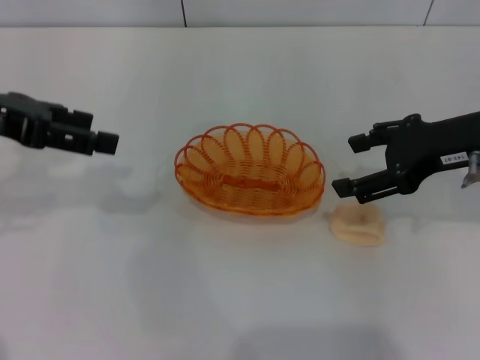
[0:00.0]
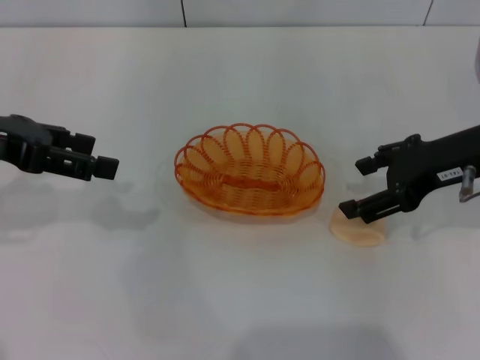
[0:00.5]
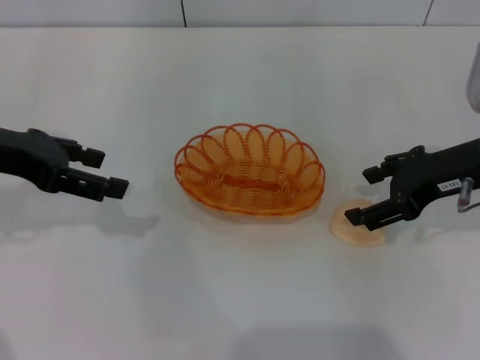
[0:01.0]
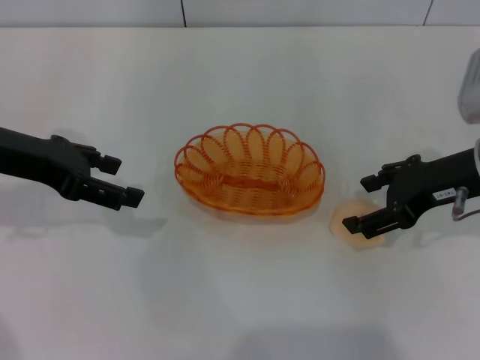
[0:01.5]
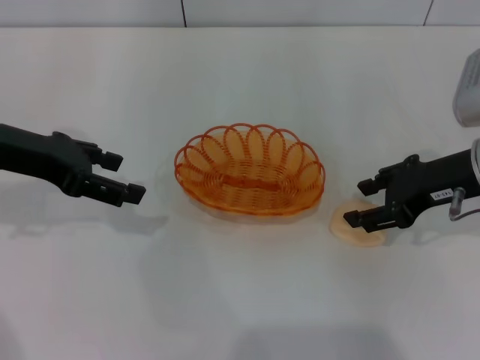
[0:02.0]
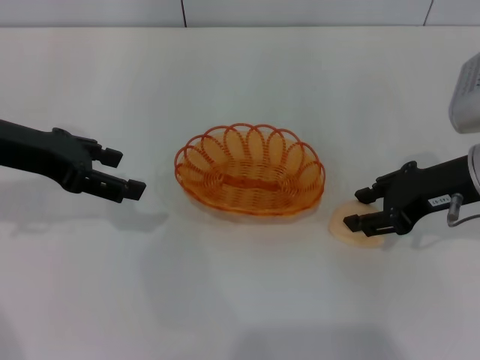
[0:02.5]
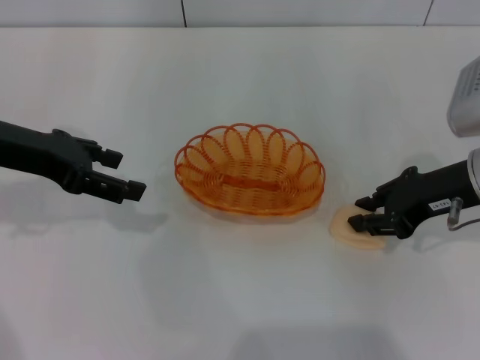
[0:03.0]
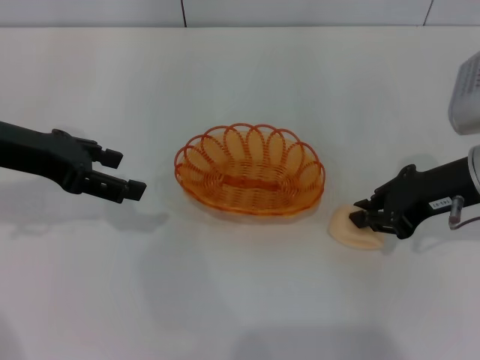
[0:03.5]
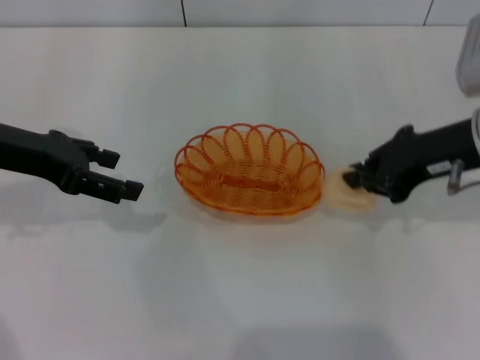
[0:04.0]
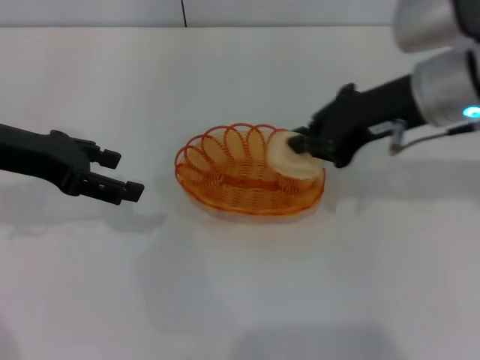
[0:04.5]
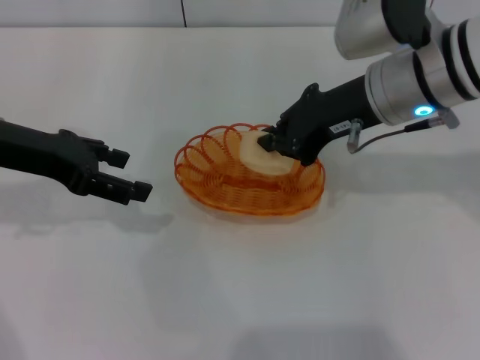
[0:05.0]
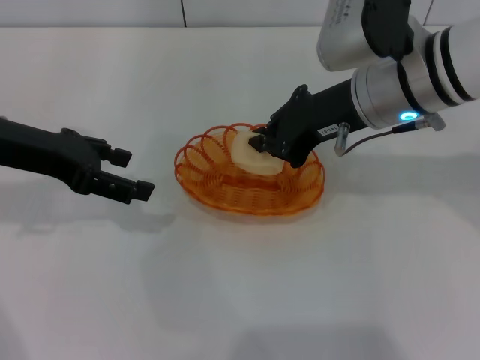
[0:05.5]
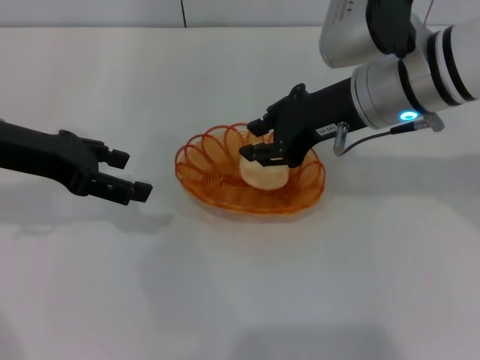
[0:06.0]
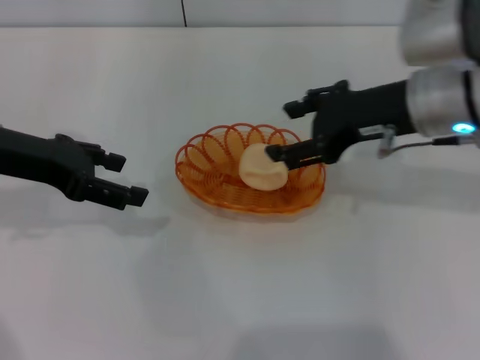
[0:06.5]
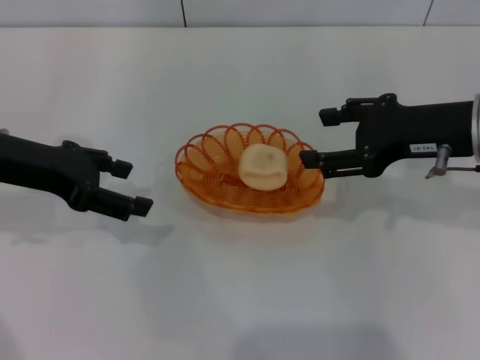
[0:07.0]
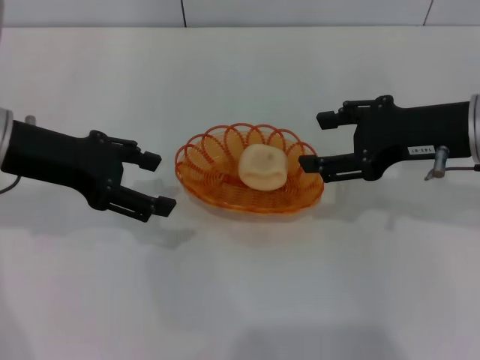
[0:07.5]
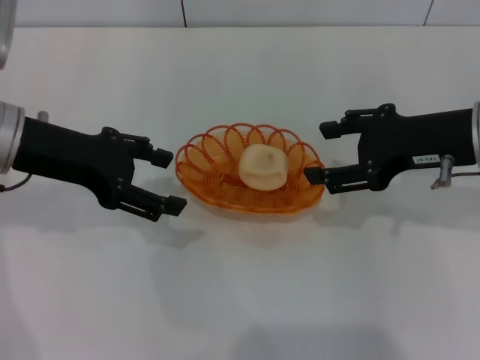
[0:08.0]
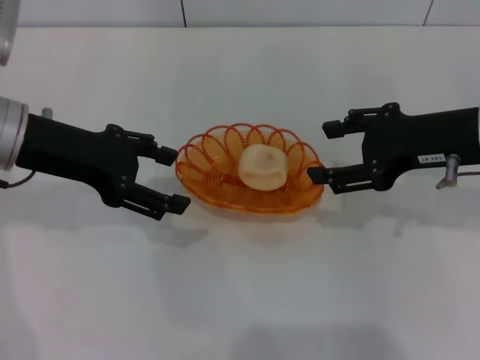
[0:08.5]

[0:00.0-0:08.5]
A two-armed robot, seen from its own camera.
Step, 0:00.0 to 0:04.0: Pick up the egg yolk pastry with the right gripper.
Step, 0:04.5 to 0:06.5: Place the egg yolk pastry into the basket with the right gripper.
0:00.0 to 0:02.0: The left gripper ends up some 5 cm from where it was.
0:02.0 to 0:04.0: The right gripper closes its fingers.
0:04.0 to 0:06.5: The right gripper travels to the left by about 5 cm, and opens its fingers.
0:06.5 to 0:08.5: The right gripper moves to the right, about 5 cm.

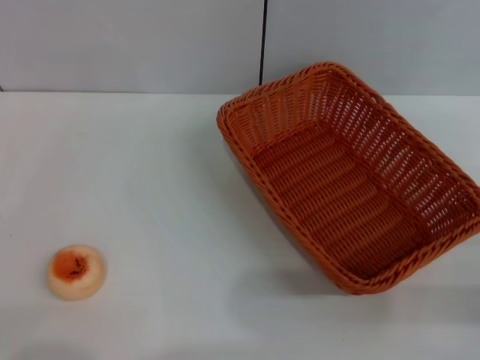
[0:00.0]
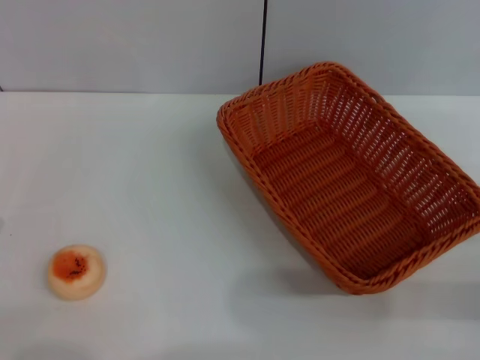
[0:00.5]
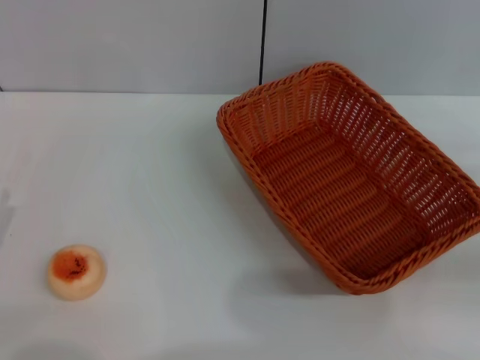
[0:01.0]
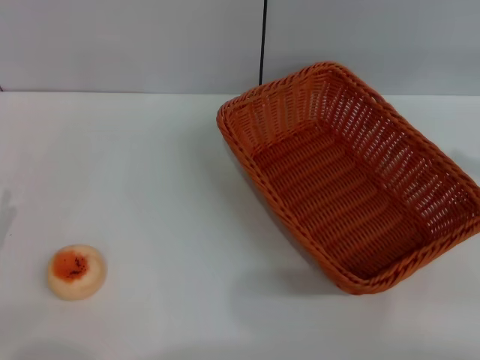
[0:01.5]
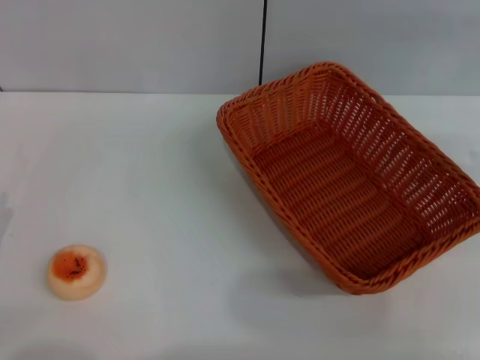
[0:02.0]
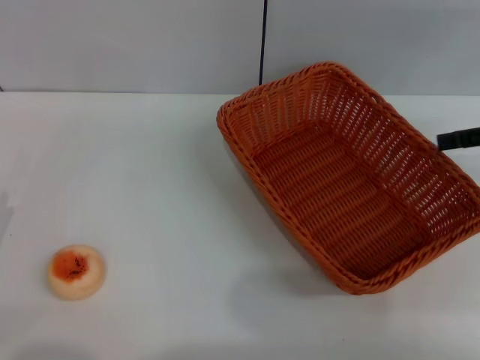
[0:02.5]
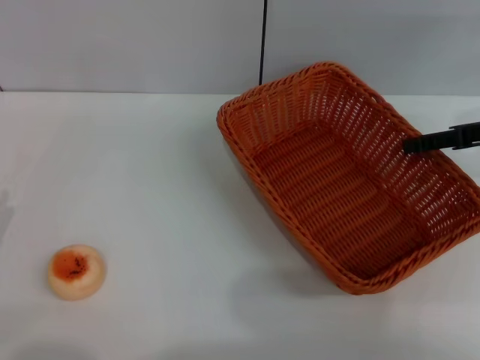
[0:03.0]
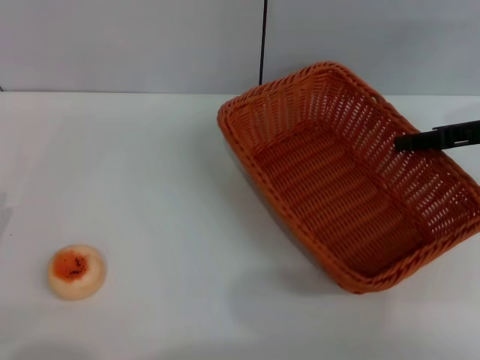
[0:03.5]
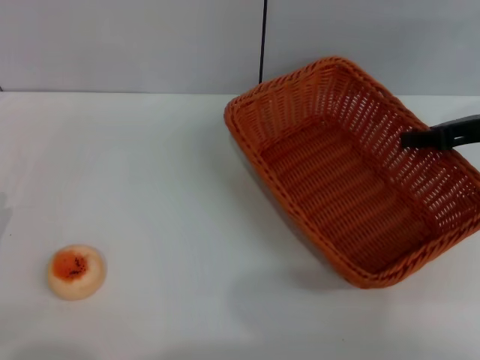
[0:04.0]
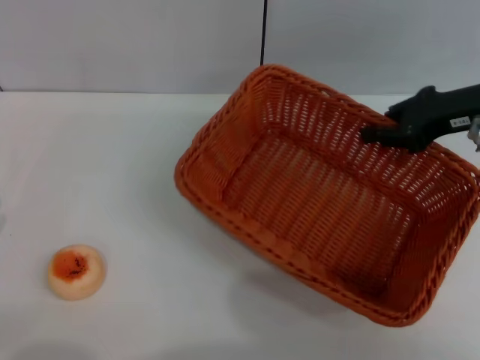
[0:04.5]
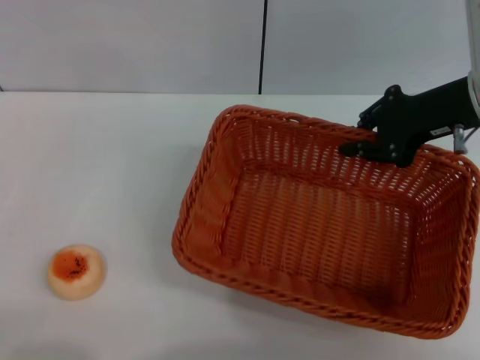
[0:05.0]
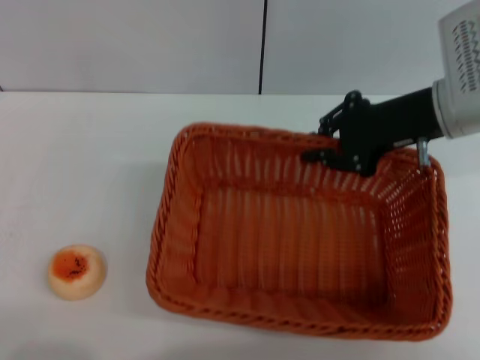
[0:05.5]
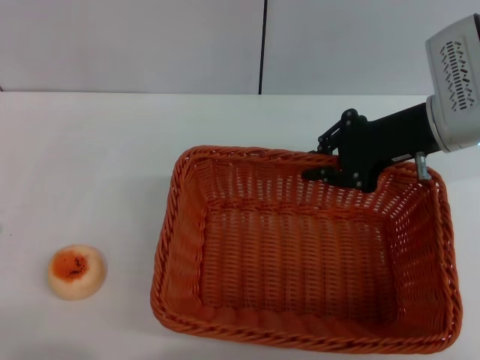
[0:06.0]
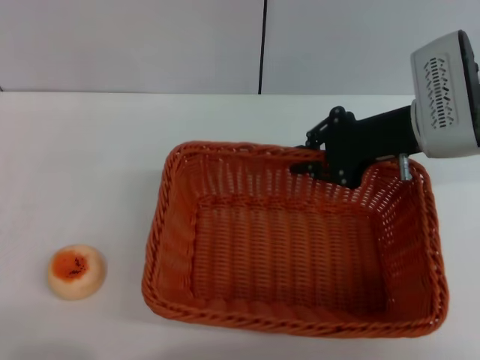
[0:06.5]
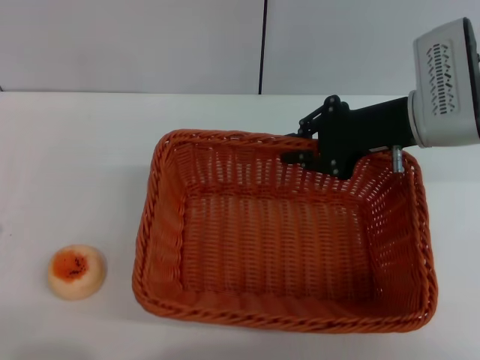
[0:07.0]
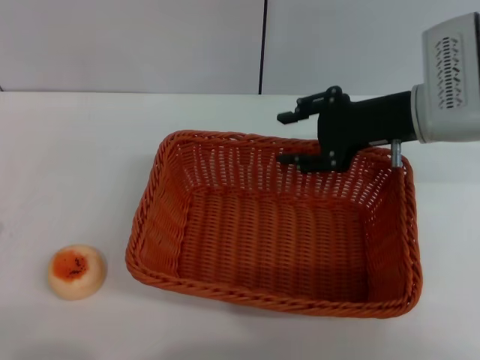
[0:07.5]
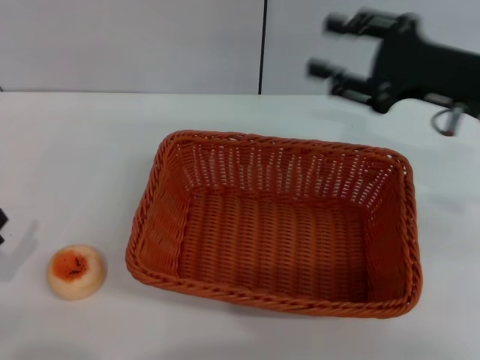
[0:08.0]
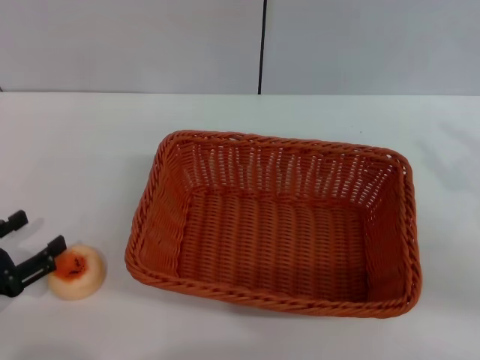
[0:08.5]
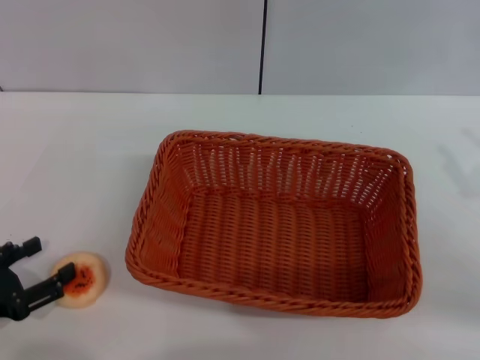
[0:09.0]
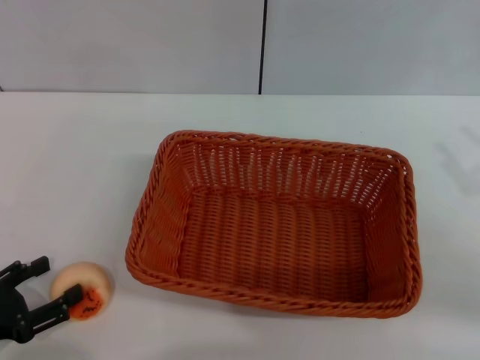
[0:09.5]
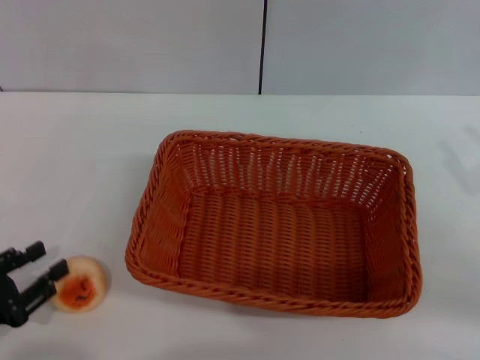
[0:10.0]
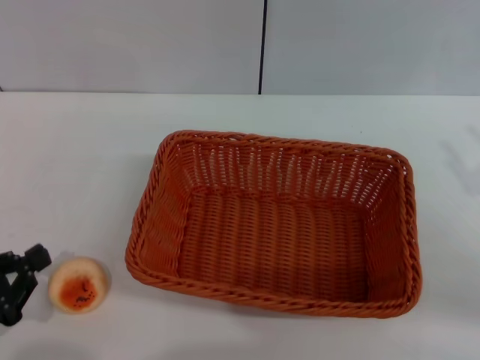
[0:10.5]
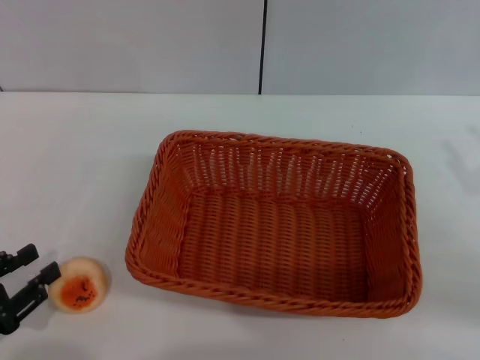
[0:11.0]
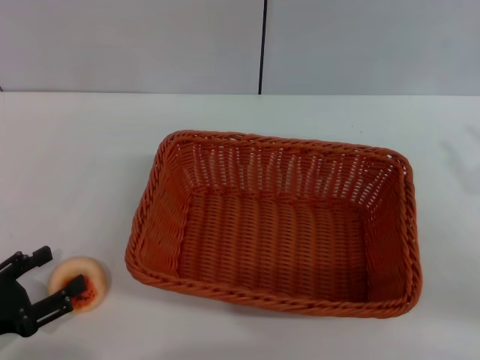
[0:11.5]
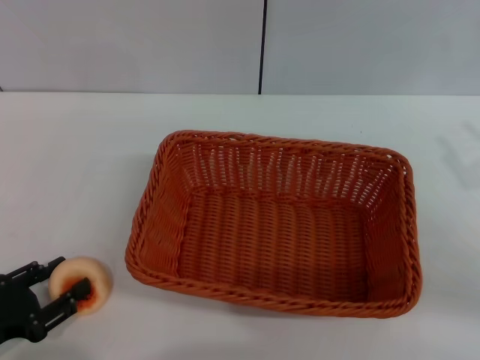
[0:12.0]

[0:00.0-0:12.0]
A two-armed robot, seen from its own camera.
Step, 0:00.0 to 0:07.5: Move the basket to the center of view with the right gripper.
0:02.0 to 0:04.0: The right gripper travels to the left, downward and forward by roughly 10 cm, and closes its fingers.
0:04.0 to 0:06.0: The right gripper travels to the left by approximately 10 cm.
0:06.0 to 0:08.0: The right gripper shifts by roughly 5 cm, and opens up.
0:08.0 to 0:10.0: The right gripper heads backward and to the right, covering about 15 cm.
0:10.0 to 0:12.0: The left gripper closes and opens again.

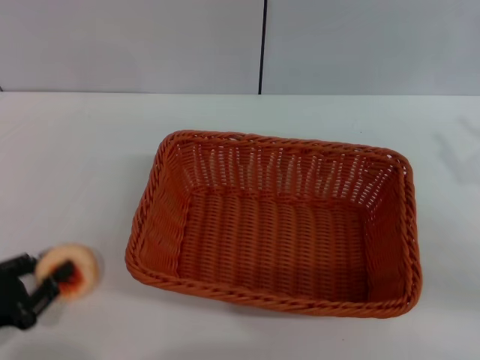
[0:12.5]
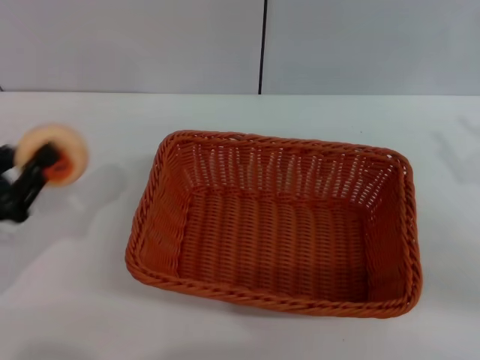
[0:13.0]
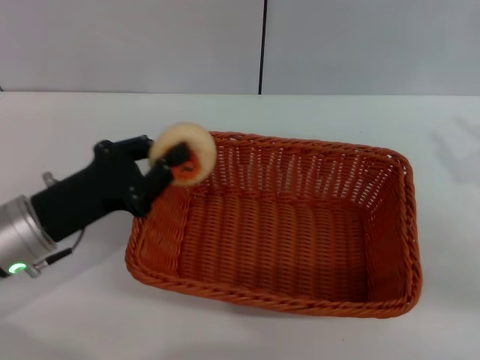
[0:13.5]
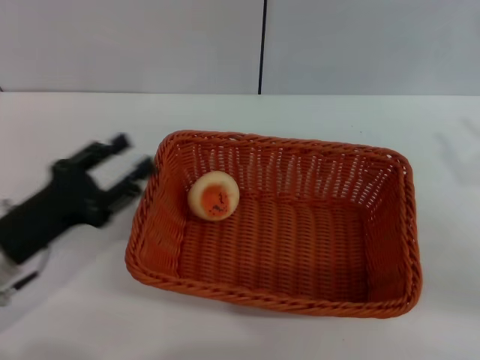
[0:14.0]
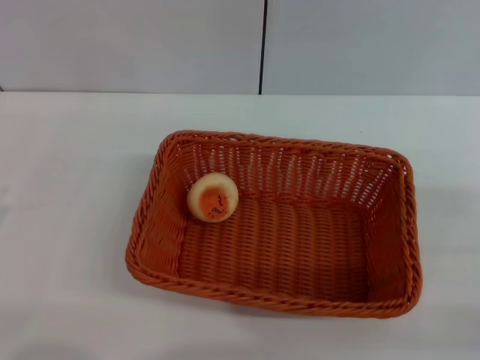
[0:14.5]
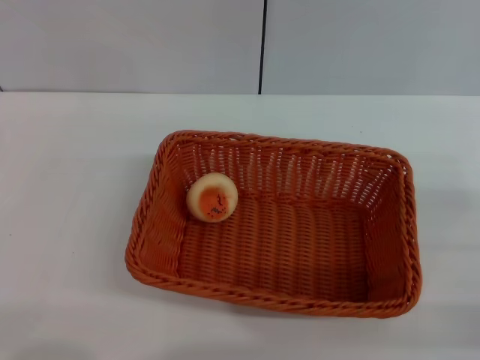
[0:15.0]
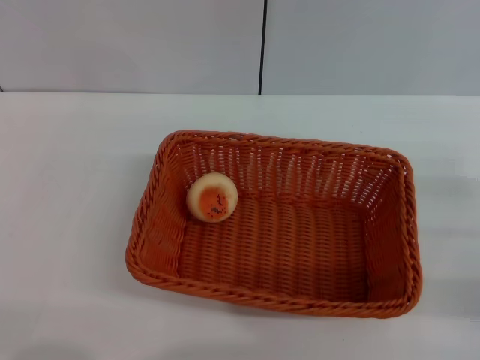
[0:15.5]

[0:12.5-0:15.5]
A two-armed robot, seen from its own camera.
Step, 0:13.0 to 0:13.5: Place the egg yolk pastry into the basket with the left gripper.
0:12.5 to 0:14.0: The left gripper is displaced forward and to the right by about 10 cm.
0:14.0 to 0:15.5: The left gripper is displaced to the left and backward by some 15 cm, and opens its fingers.
